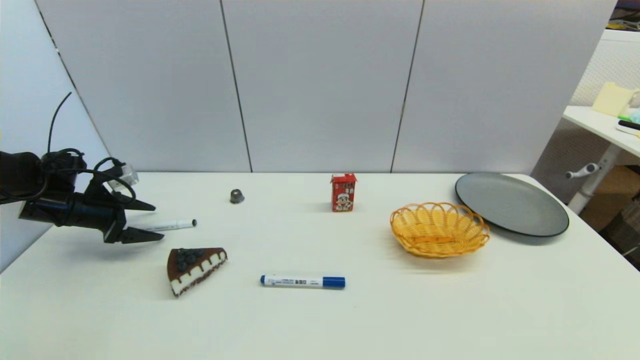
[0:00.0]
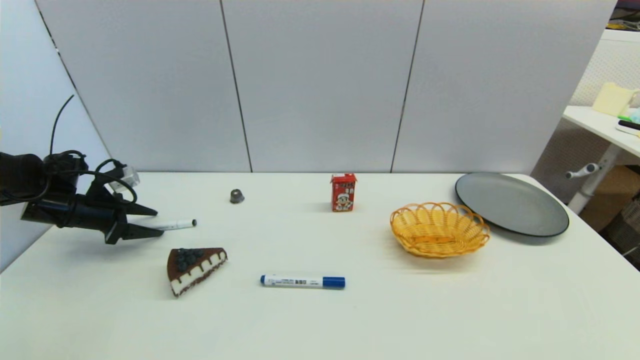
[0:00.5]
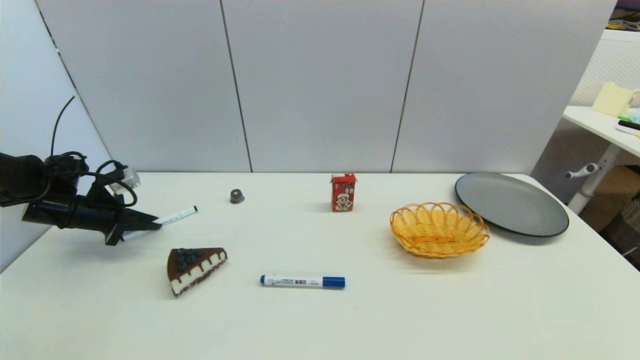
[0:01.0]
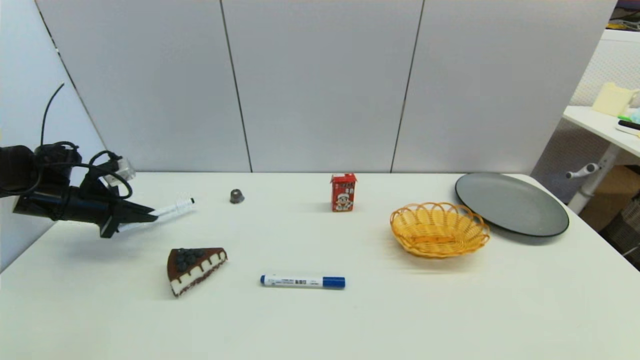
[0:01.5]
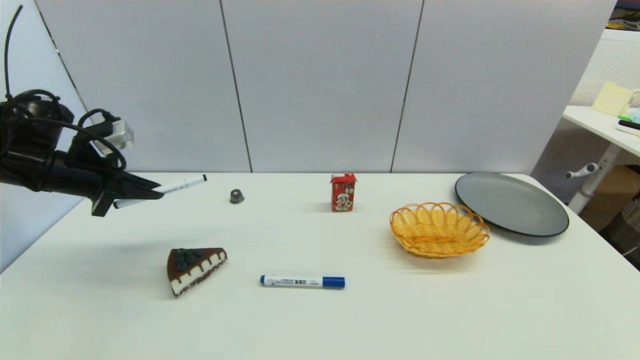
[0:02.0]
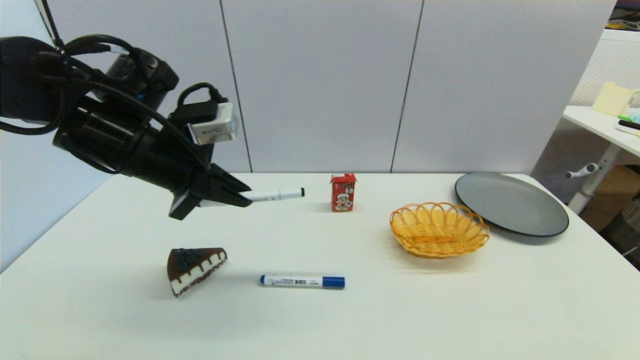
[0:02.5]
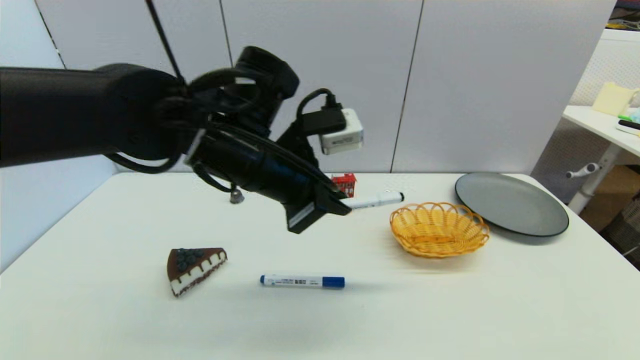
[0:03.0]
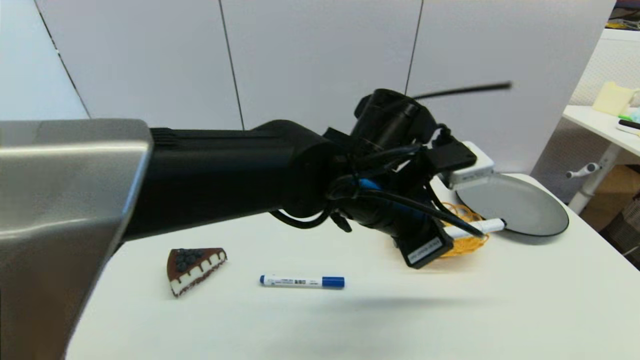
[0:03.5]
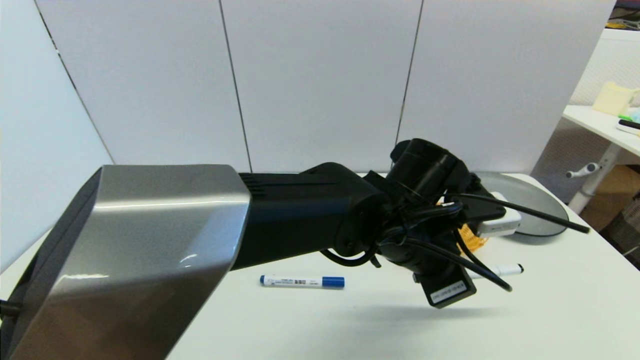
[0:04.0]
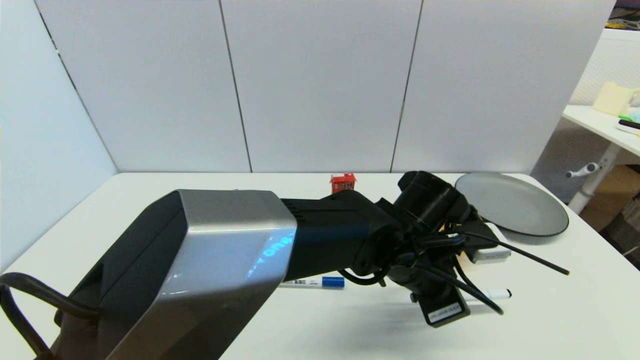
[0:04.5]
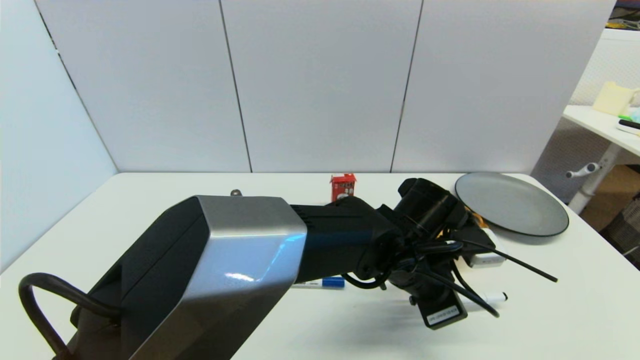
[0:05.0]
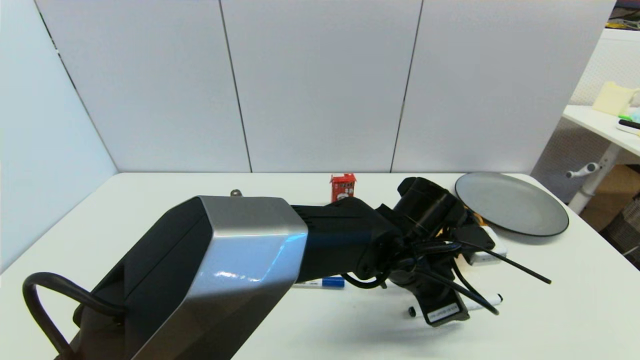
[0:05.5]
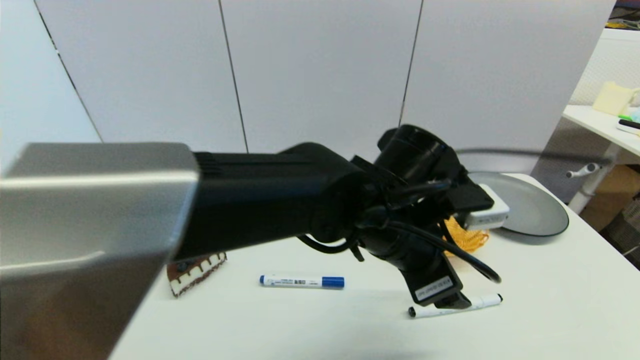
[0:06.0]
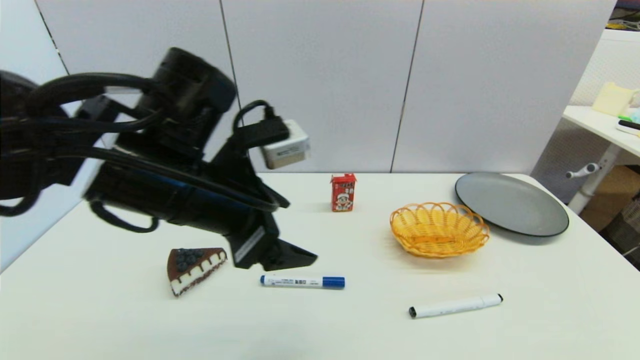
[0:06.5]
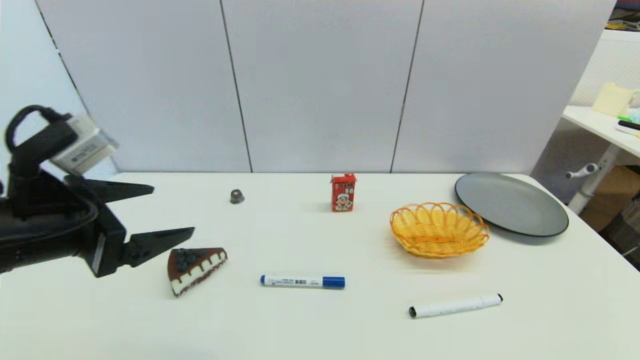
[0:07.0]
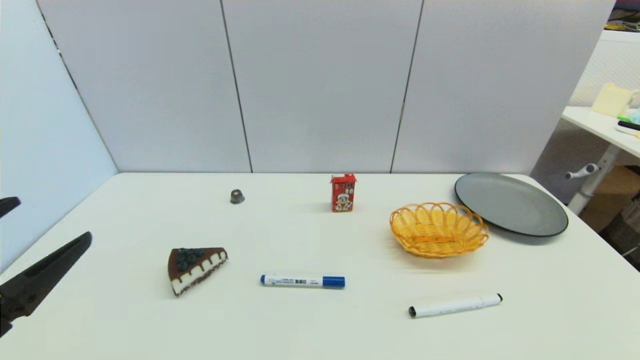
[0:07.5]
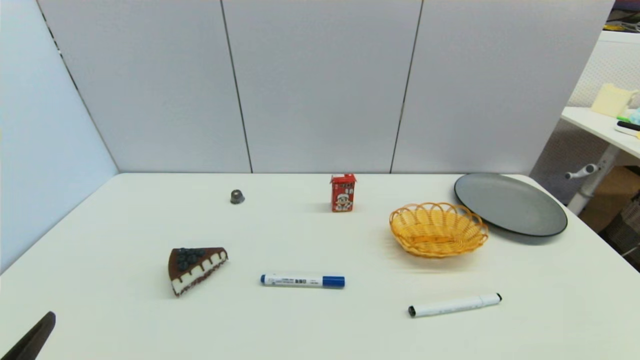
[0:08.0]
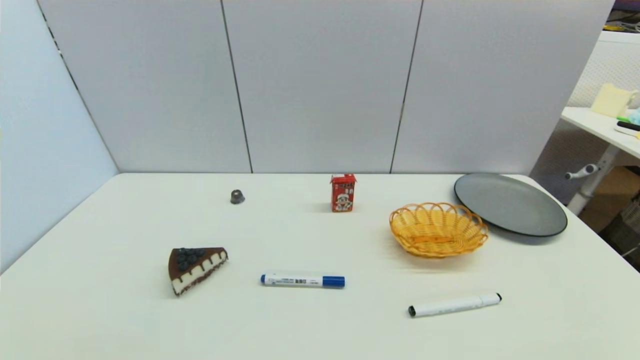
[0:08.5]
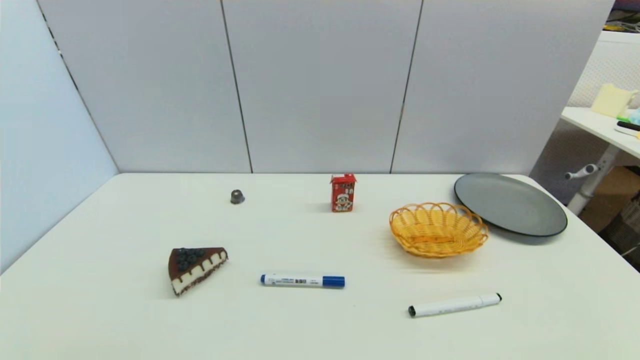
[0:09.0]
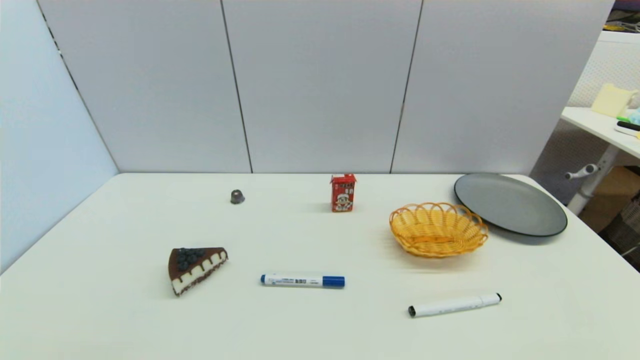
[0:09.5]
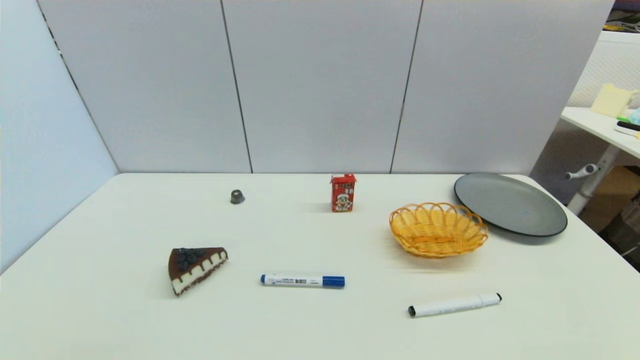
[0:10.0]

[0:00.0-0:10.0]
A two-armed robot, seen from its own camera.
Task of the whole recording: put the black marker in the designated position.
Step, 0:01.5 to 0:05.5: Place the Marker pen on the table with left gripper.
0:00.0 to 0:02.0: The left gripper goes some 15 cm upward and to the right, and closes its fingers.
0:02.0 to 0:04.0: The left gripper shifts some 40 cm to the right.
0:04.0 to 0:06.0: The left gripper opens its fingers.
0:06.0 to 0:08.0: The left gripper goes roughly 40 cm to the left and backward.

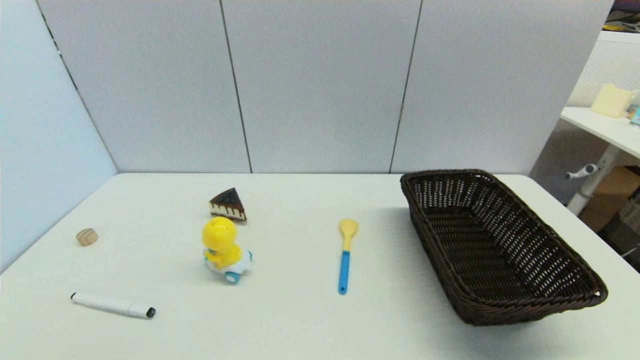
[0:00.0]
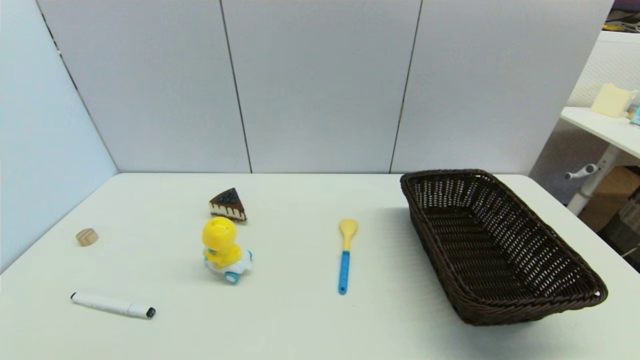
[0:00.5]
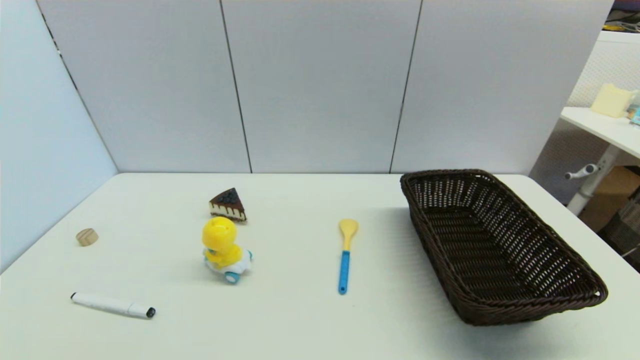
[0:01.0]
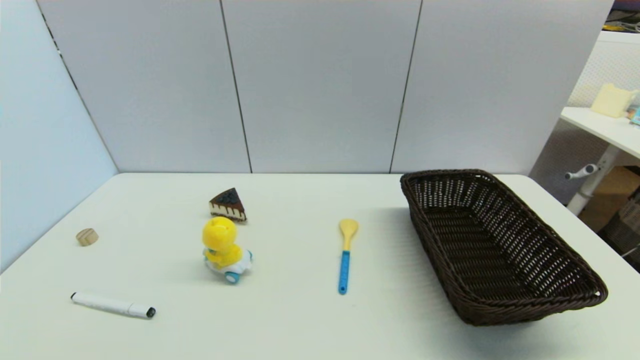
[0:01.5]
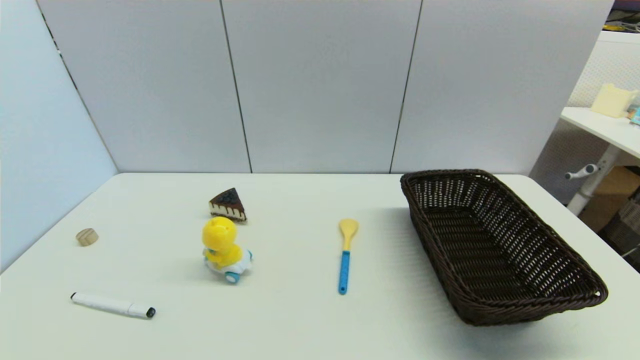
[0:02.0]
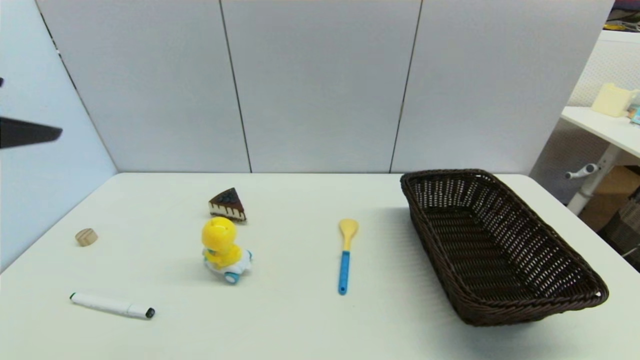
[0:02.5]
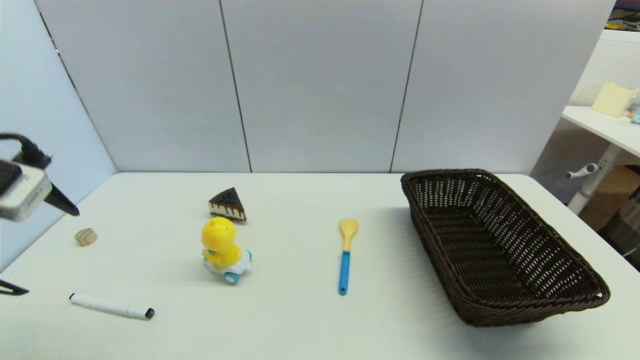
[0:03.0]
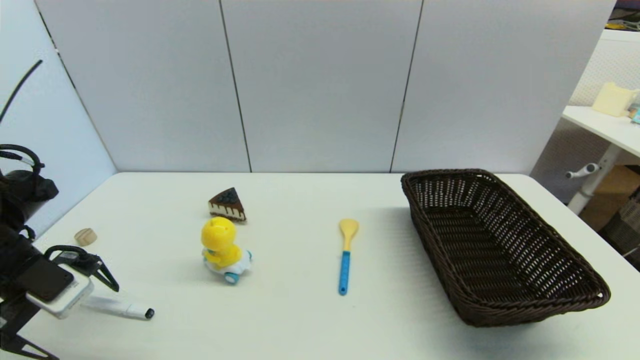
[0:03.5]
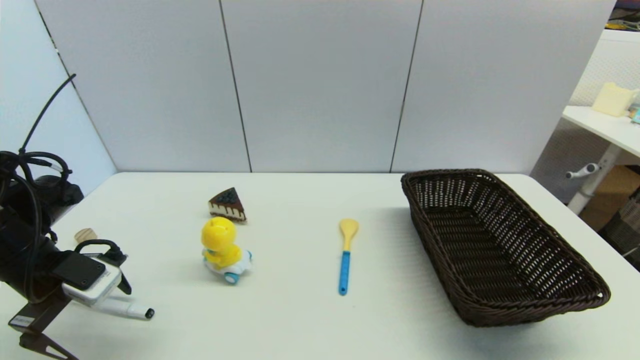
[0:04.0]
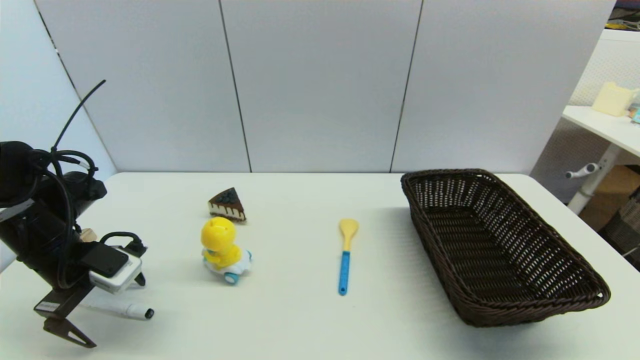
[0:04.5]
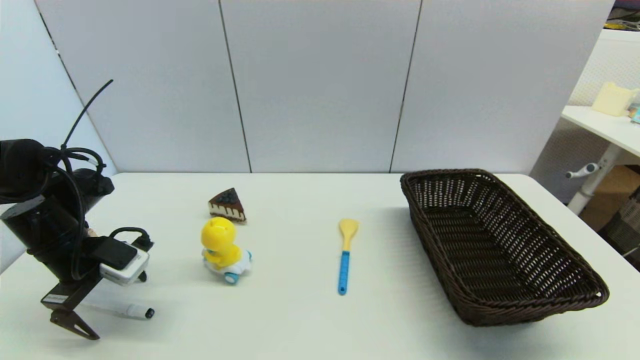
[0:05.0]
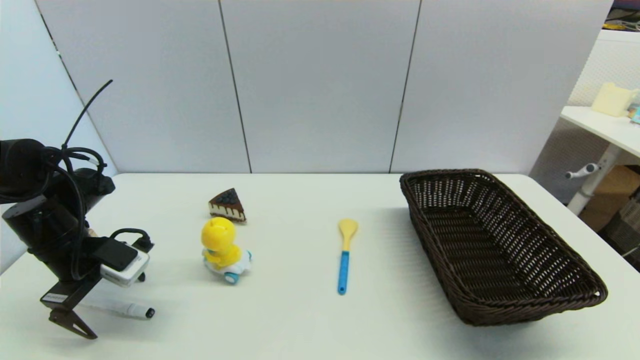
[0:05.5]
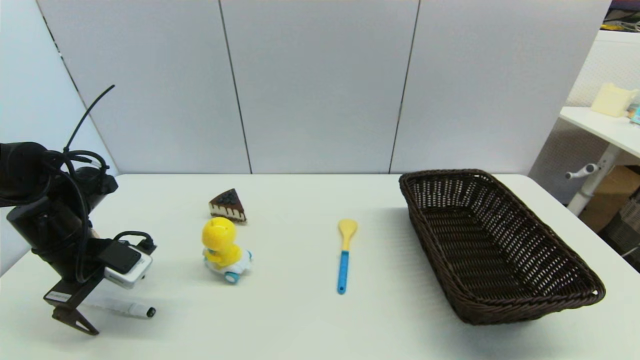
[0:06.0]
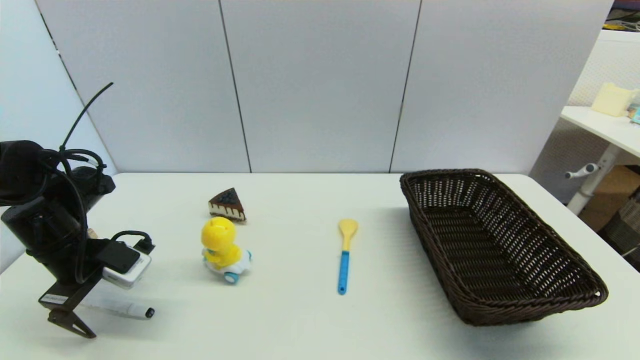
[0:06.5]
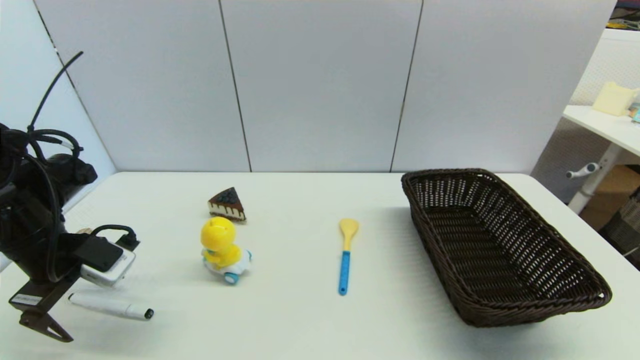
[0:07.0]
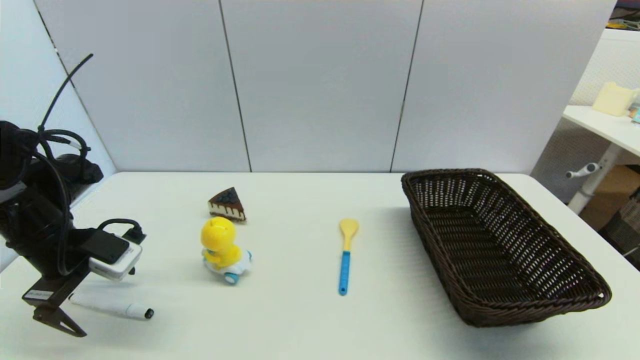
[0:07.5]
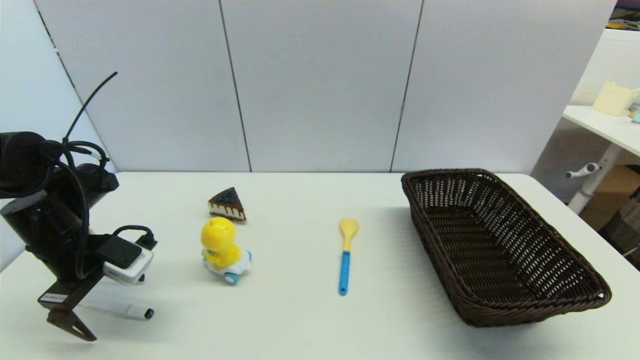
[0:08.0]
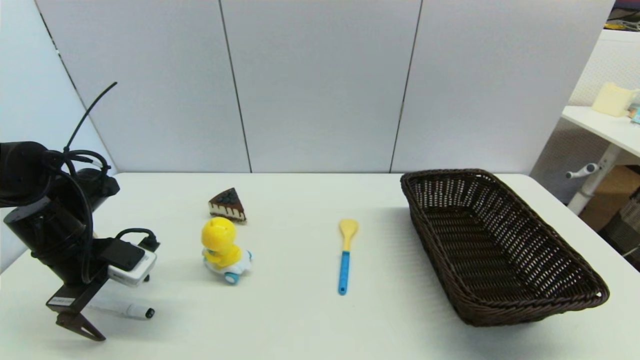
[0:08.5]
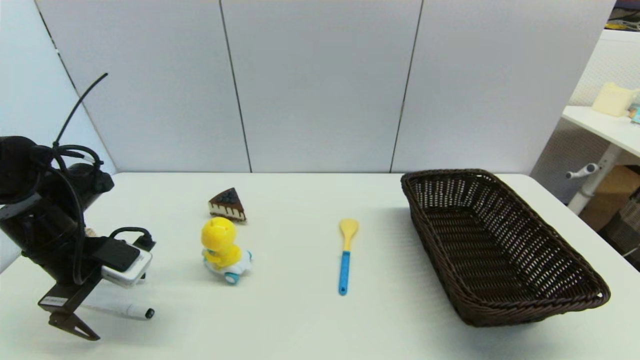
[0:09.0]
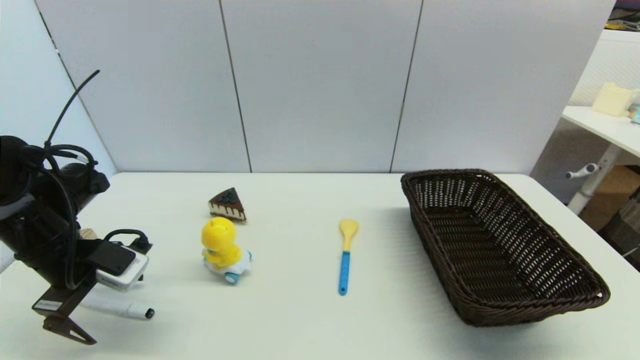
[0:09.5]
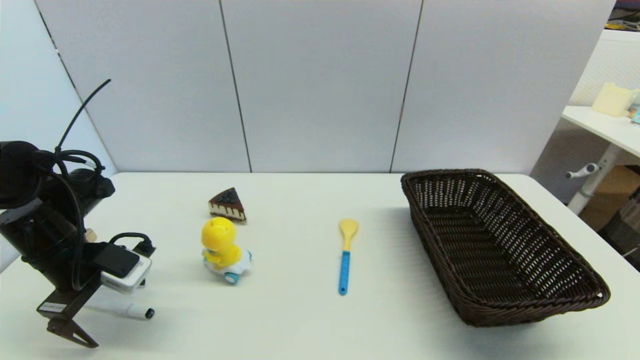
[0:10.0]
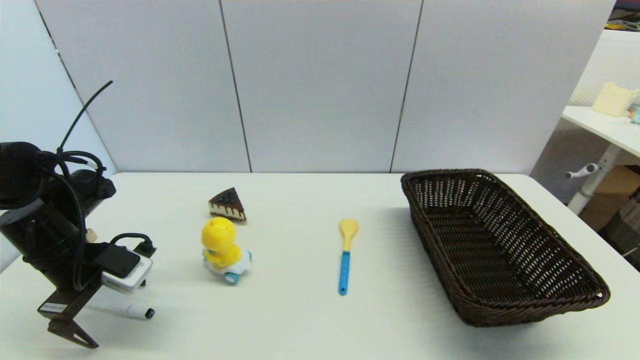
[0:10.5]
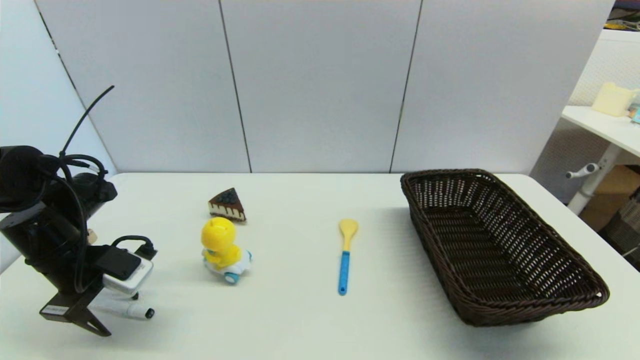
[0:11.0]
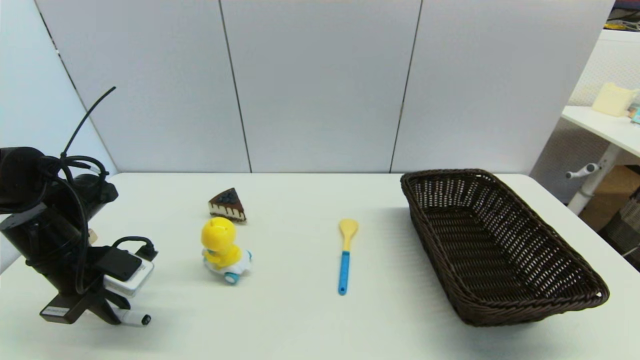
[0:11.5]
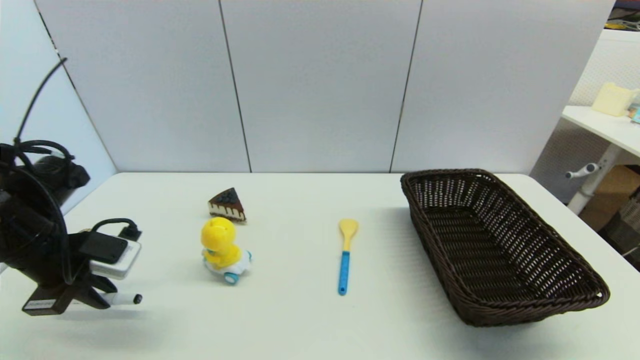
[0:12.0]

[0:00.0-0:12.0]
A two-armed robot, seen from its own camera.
Task of the whole recording: put the black marker in the designated position.
Step, 0:02.0 to 0:11.0: Grasp the Marker pen with left gripper.
0:02.0 to 0:04.0: The left gripper travels forward and downward by approximately 25 cm.
0:04.0 to 0:06.0: The left gripper changes place by roughly 5 cm.
0:08.0 to 0:10.0: The grippers make only small movements.
0:10.0 to 0:12.0: The left gripper closes.
